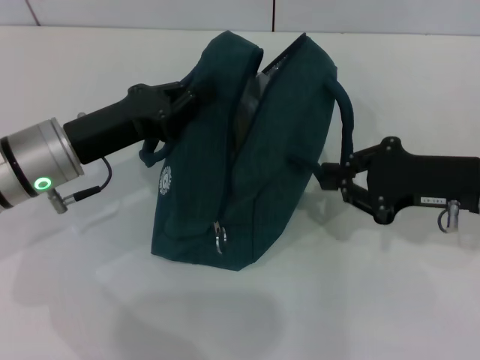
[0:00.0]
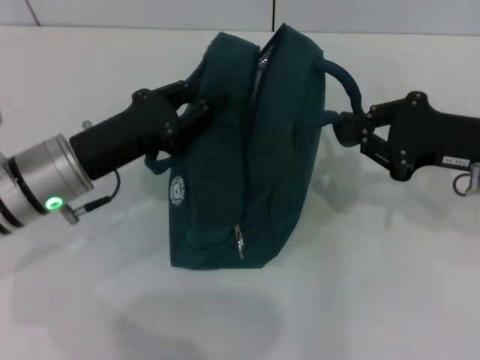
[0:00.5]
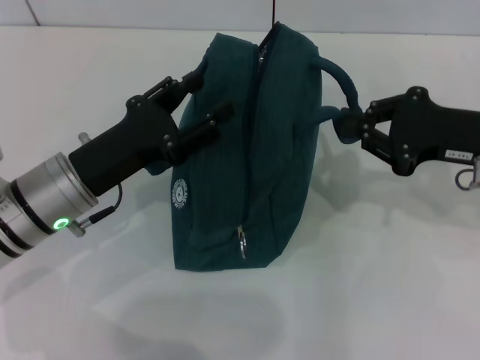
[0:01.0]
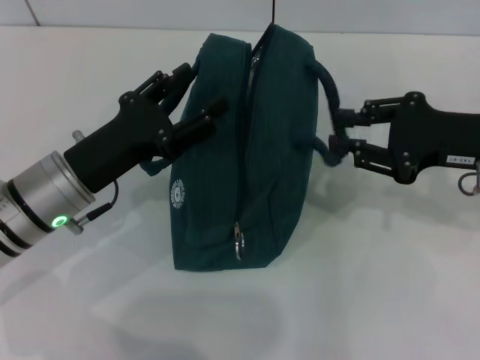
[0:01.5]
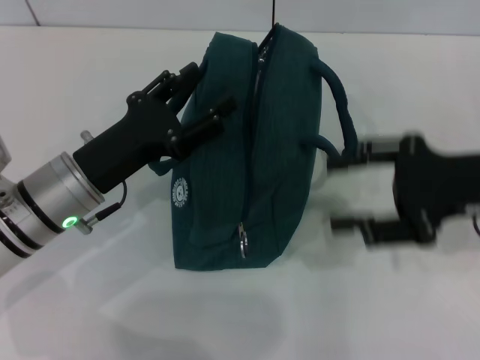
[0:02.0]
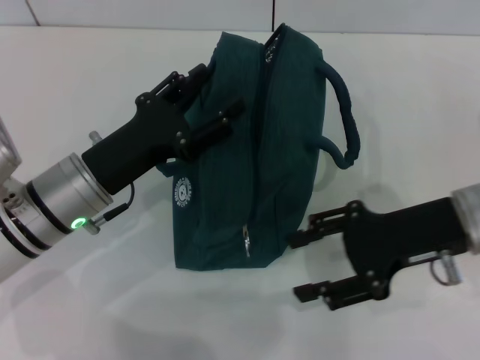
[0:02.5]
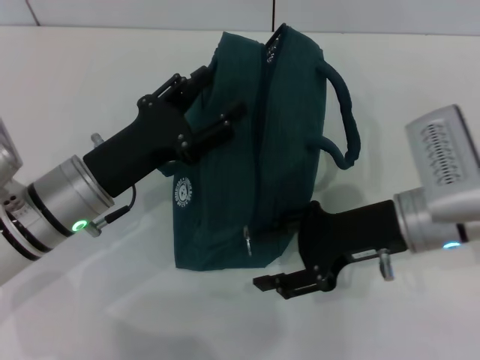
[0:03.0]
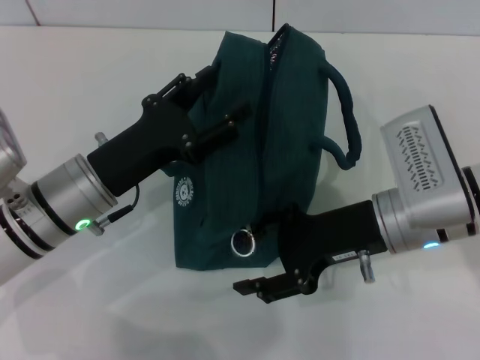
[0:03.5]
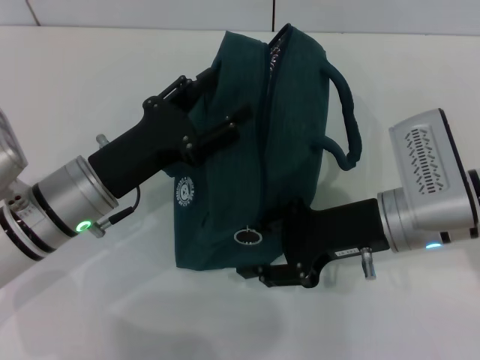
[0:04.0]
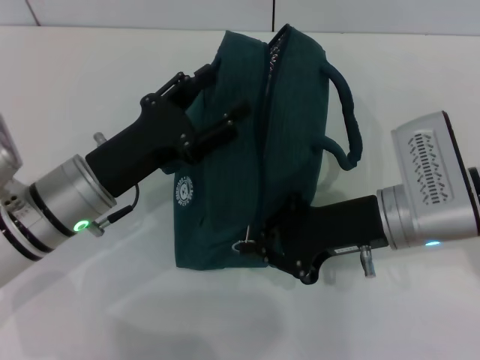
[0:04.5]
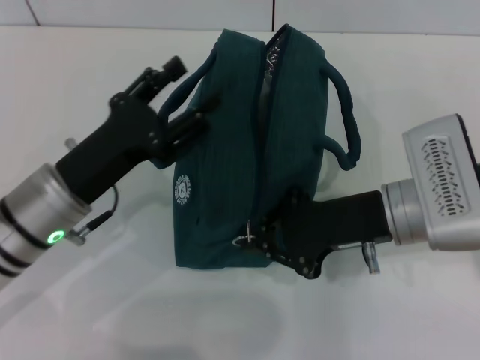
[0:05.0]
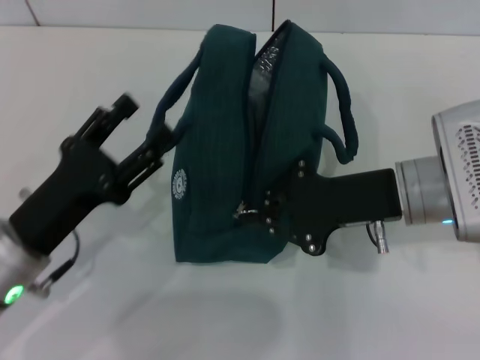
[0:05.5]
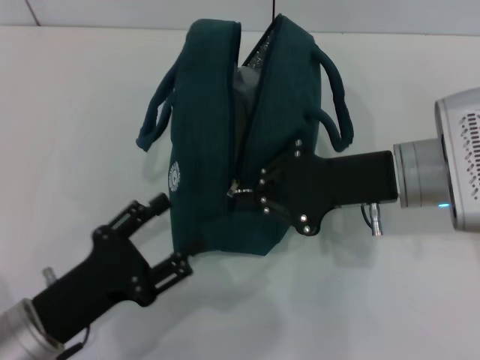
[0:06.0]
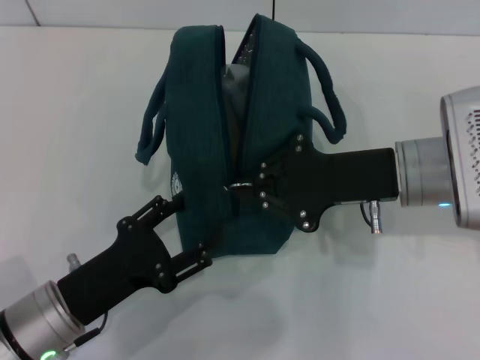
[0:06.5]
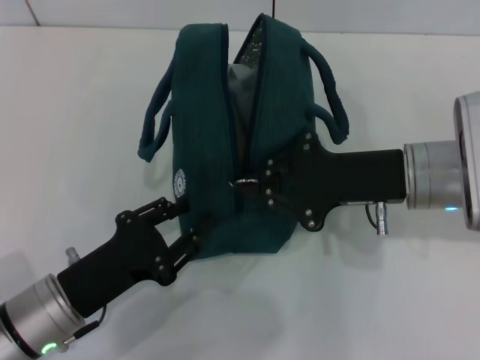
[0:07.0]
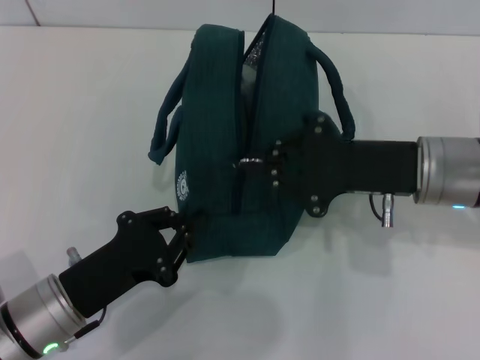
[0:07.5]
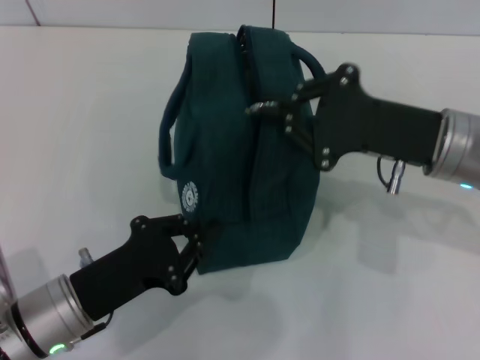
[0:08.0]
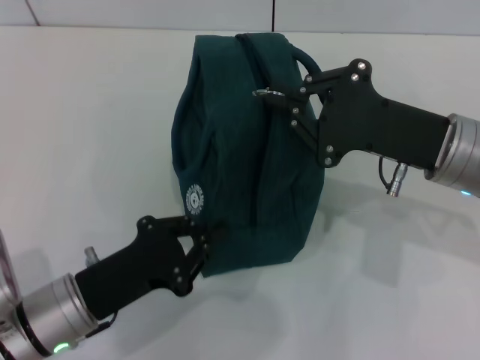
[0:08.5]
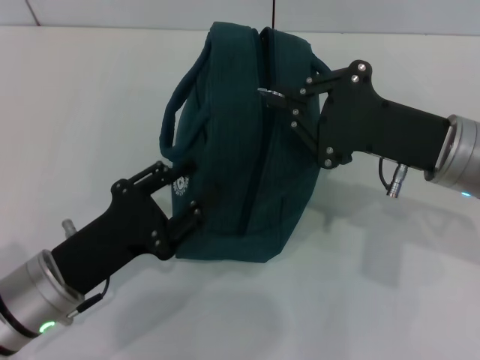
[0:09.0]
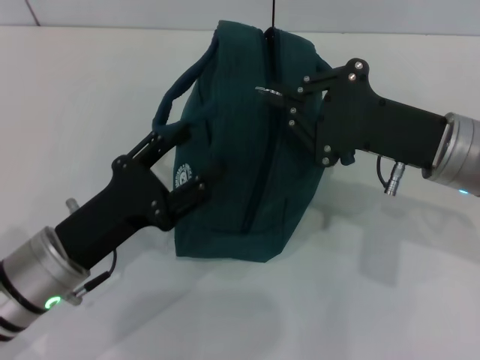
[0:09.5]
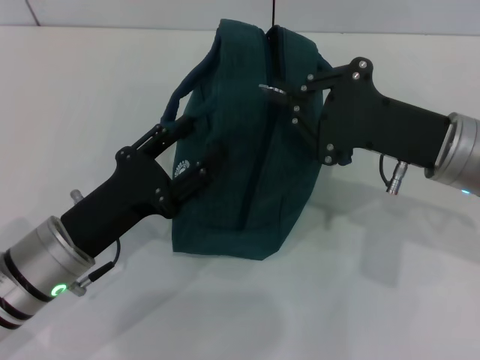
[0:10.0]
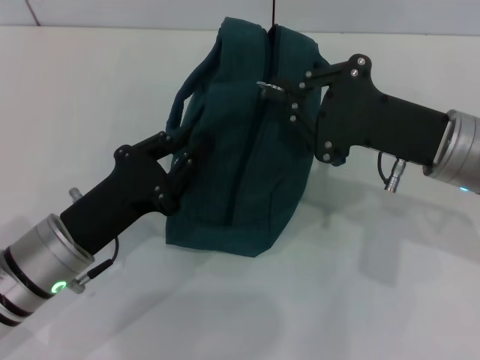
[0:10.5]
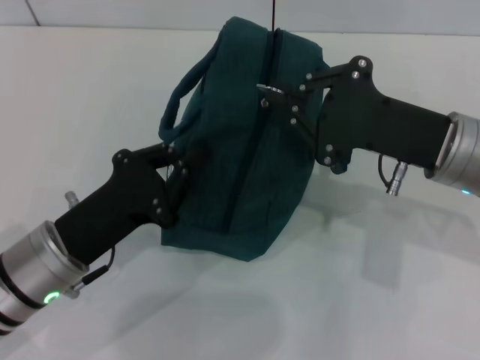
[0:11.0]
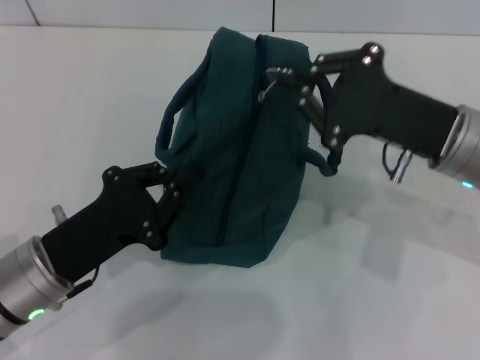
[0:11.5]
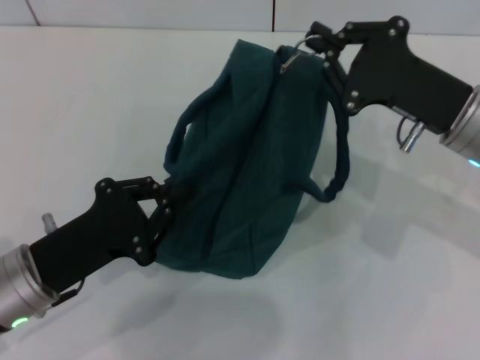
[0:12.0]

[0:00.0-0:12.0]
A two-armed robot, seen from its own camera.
0:00.0 to 0:02.0: The left gripper opens its fingers; the right gripper opens its fingers.
0:02.0 to 0:04.0: The right gripper shifts roughly 10 cm to the left and downward.
0:04.0 to 0:06.0: The right gripper closes its fingers. The left gripper heads backward, covering roughly 10 cm.
0:06.0 to 0:08.0: The left gripper closes up.
0:08.0 to 0:10.0: The left gripper opens.
0:10.0 to 0:12.0: The left gripper closes.

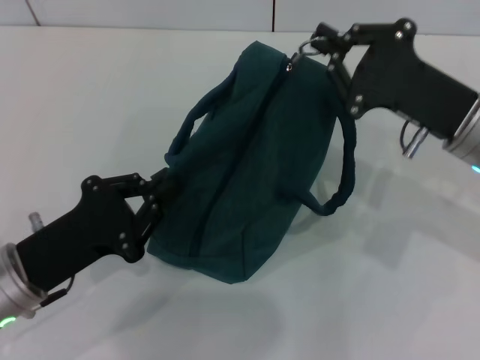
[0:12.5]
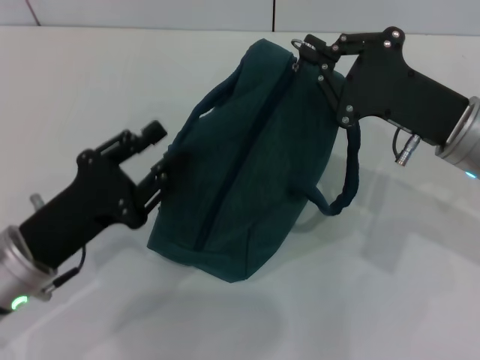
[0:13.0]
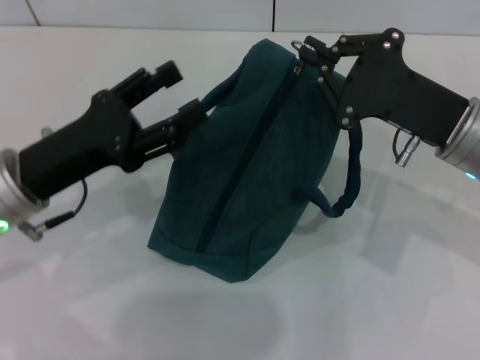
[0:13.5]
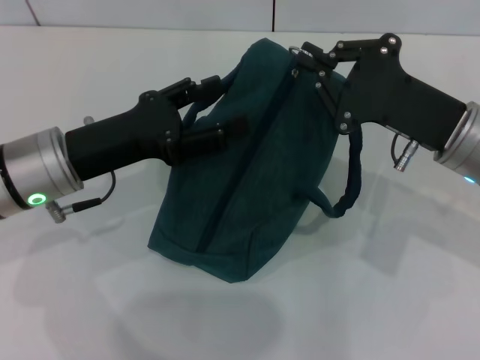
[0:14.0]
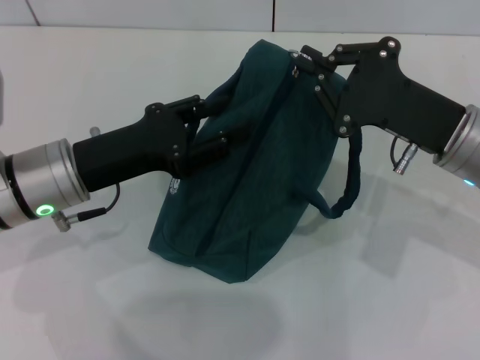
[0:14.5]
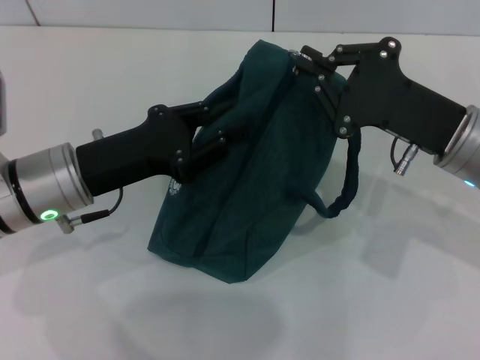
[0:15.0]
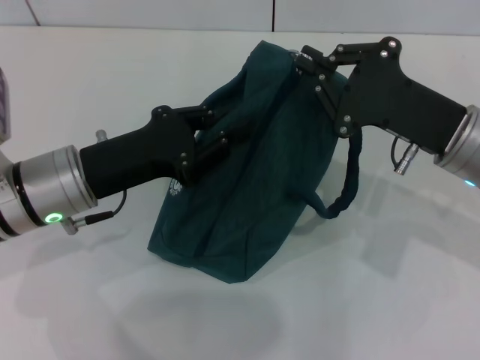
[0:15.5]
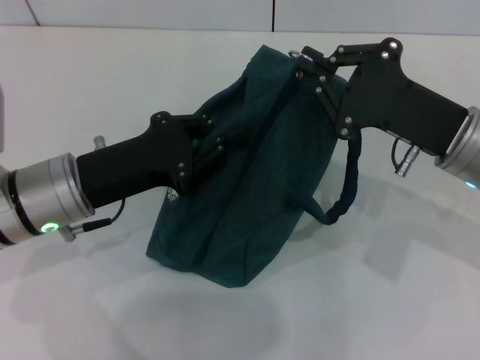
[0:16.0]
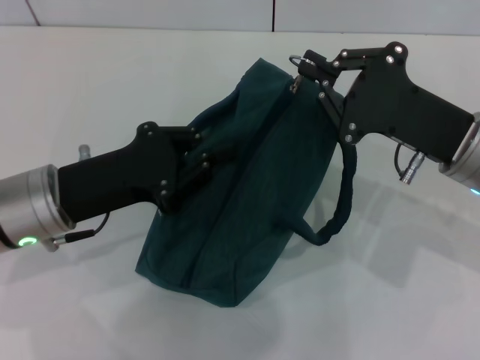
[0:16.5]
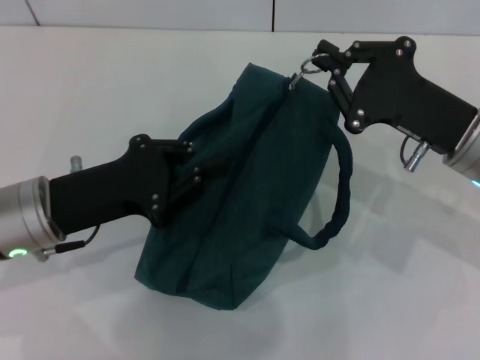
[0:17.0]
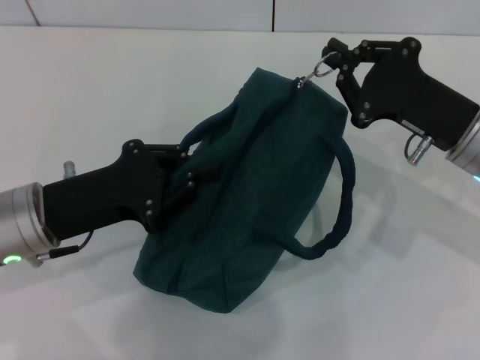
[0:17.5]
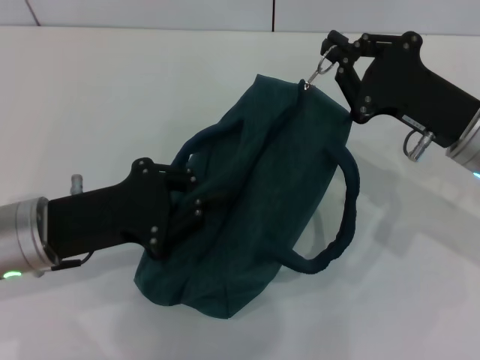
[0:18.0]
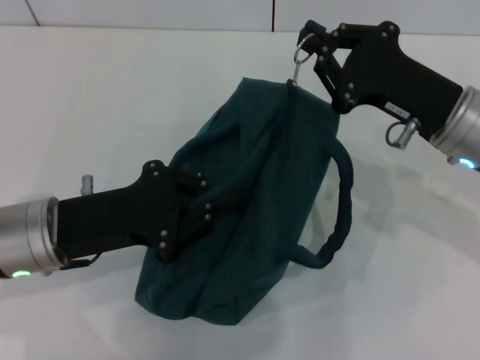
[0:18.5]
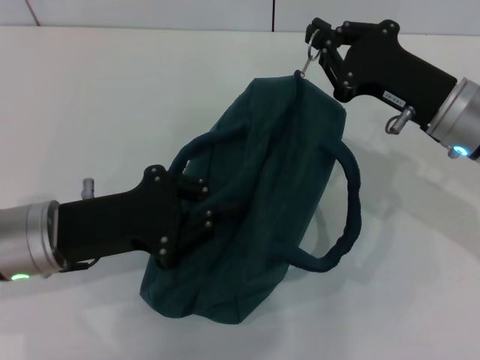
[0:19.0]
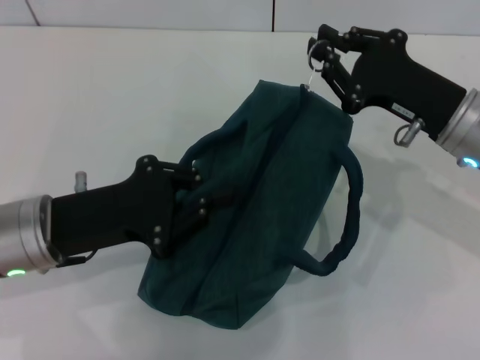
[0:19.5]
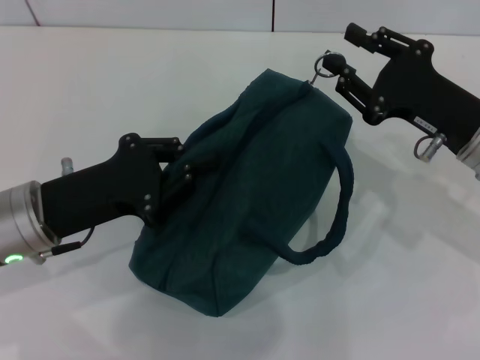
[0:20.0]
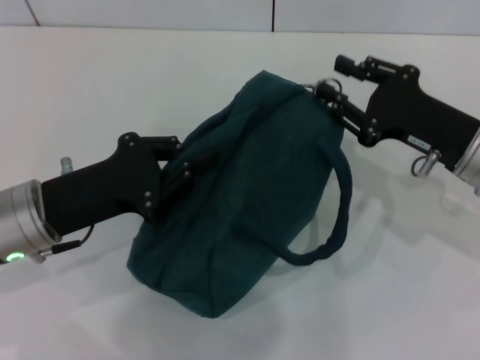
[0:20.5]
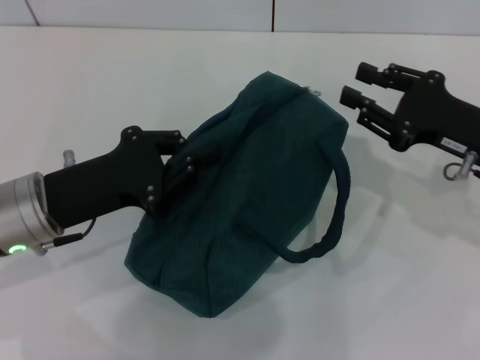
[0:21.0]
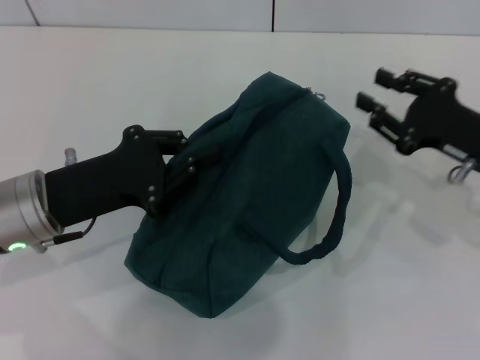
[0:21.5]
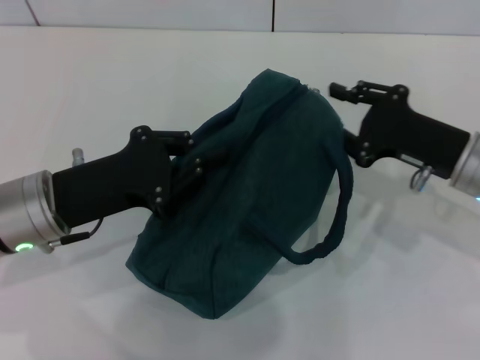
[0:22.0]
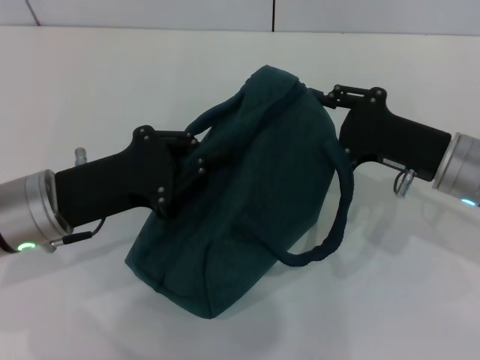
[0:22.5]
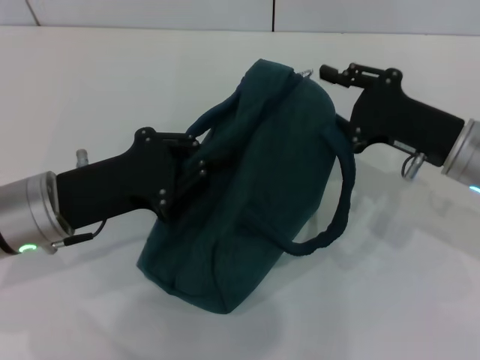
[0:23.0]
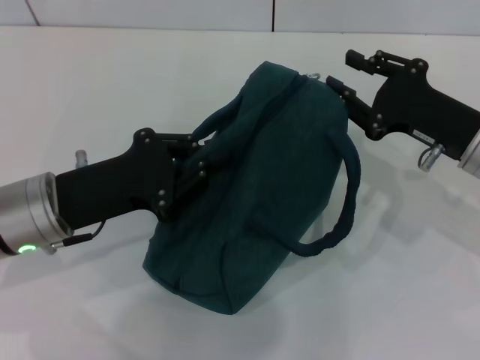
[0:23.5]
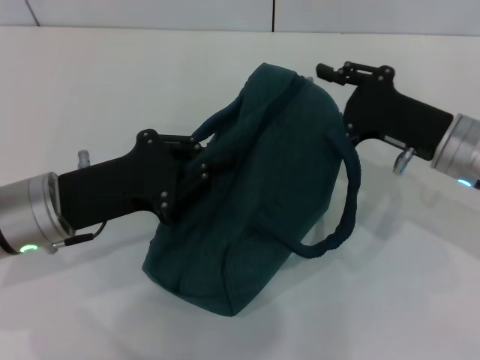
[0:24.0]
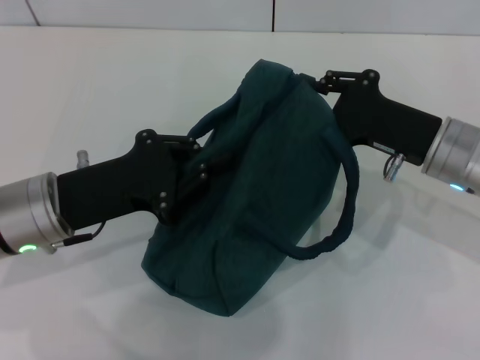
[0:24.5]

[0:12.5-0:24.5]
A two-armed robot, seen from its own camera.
0:12.5 to 0:14.5: The left gripper goes about 10 cm forward, and opens up.
0:14.5 to 0:16.5: The left gripper closes its fingers.
0:18.5 to 0:20.5: The right gripper opens up.
0:20.5 to 0:24.5: The grippers make only small movements.

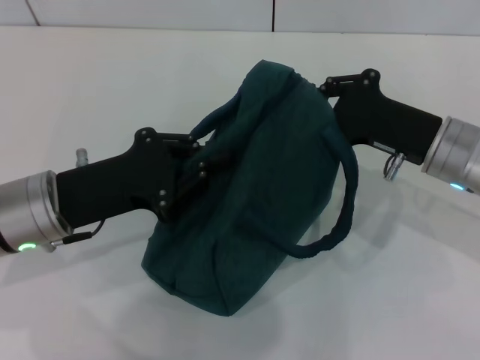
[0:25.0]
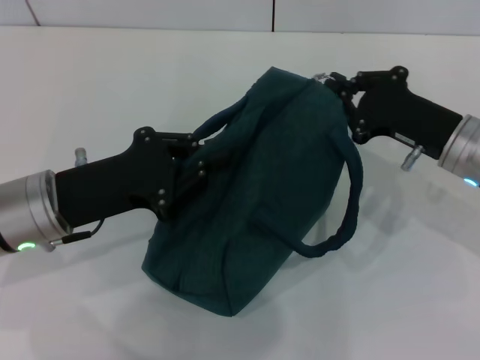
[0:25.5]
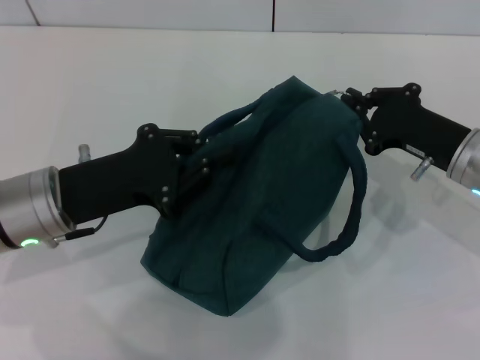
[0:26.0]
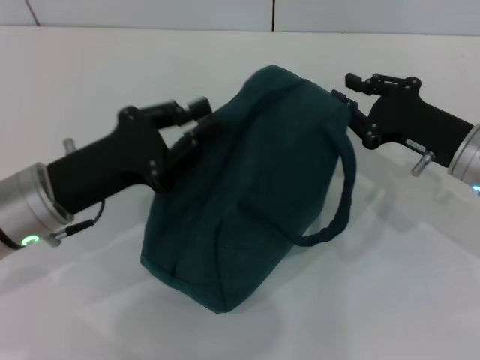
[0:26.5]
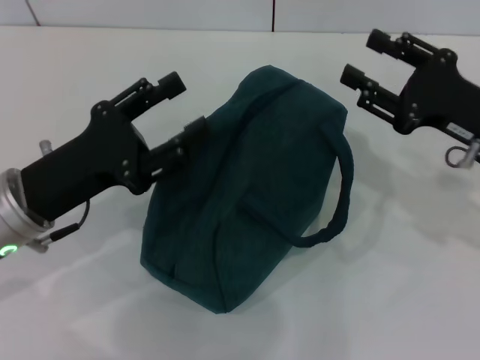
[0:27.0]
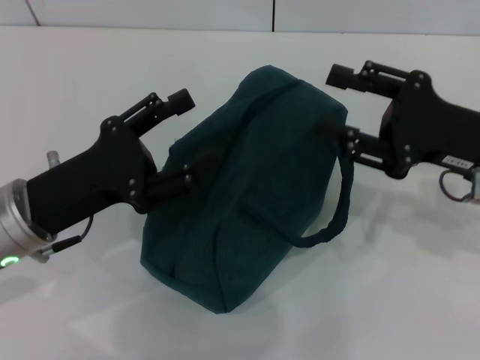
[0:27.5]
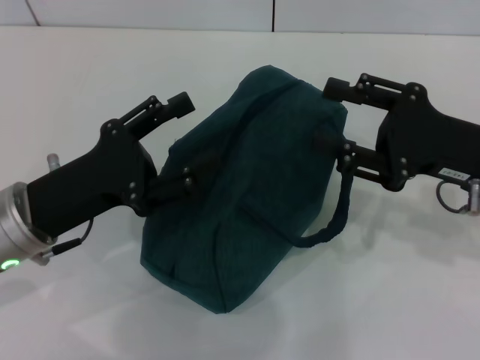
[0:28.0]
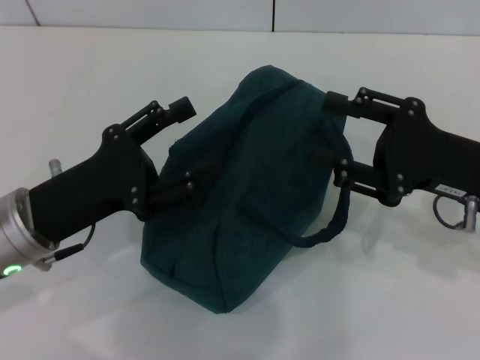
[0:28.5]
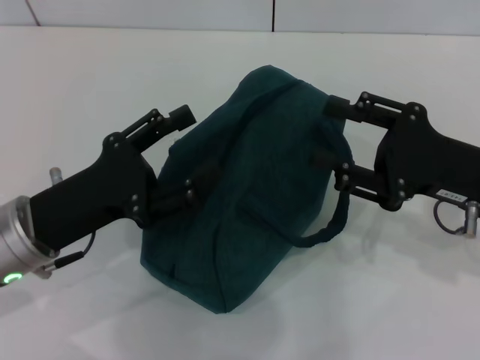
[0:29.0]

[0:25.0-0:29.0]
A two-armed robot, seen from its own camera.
0:25.0 to 0:27.0: The right gripper moves to the right, some 5 cm, and opens up. The left gripper opens.
